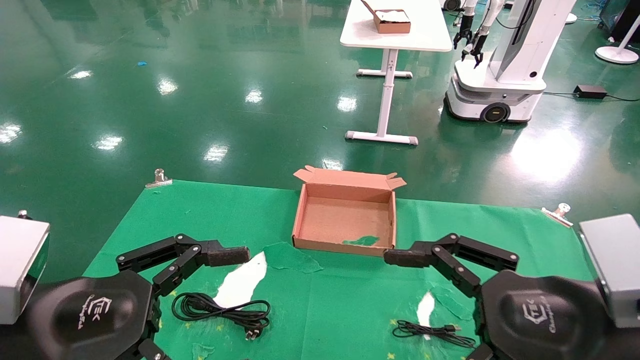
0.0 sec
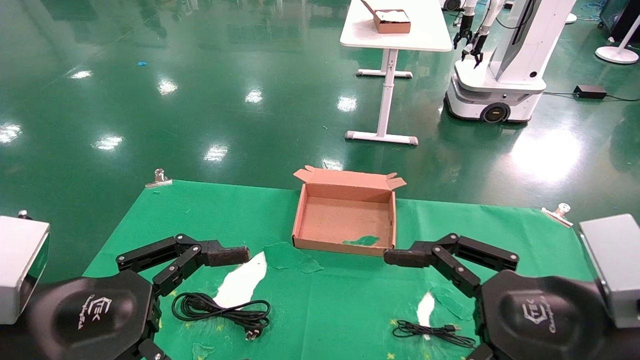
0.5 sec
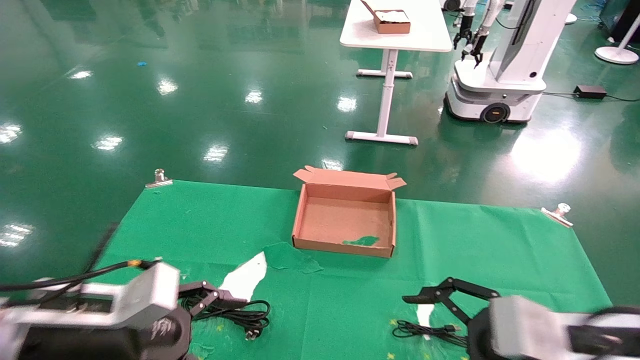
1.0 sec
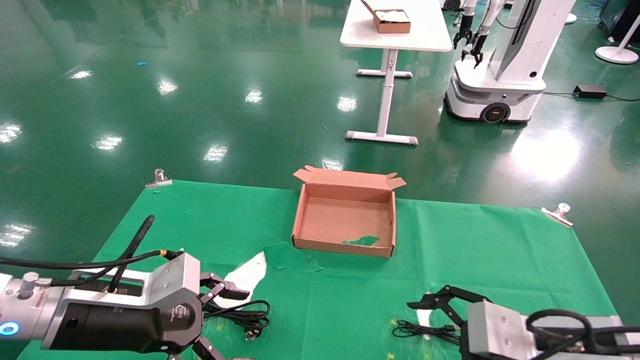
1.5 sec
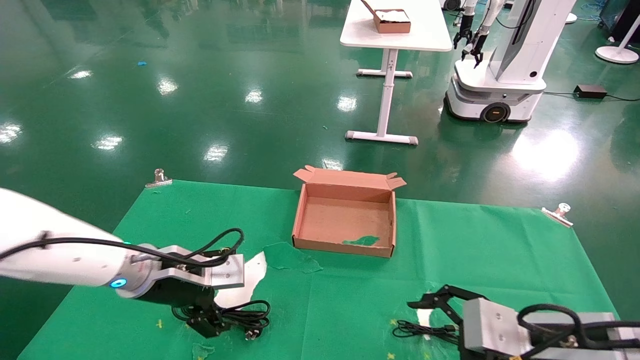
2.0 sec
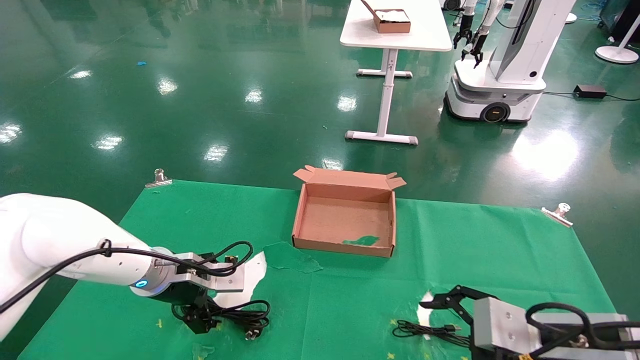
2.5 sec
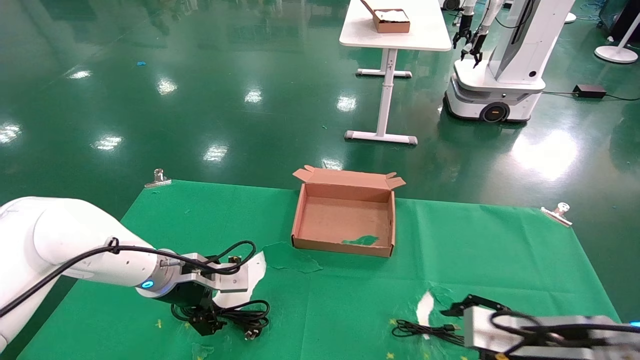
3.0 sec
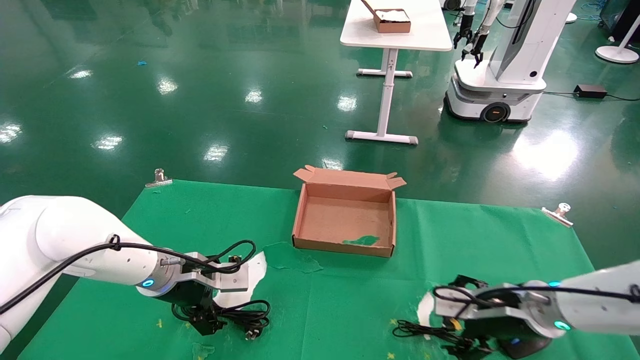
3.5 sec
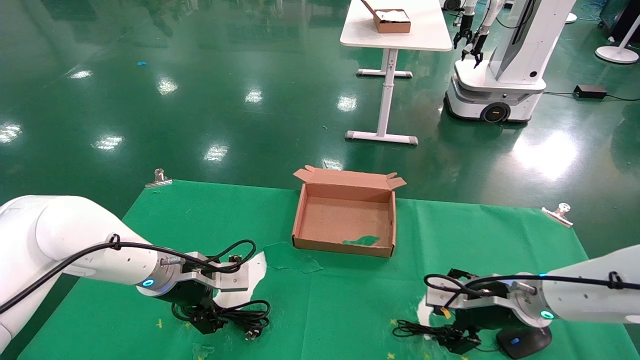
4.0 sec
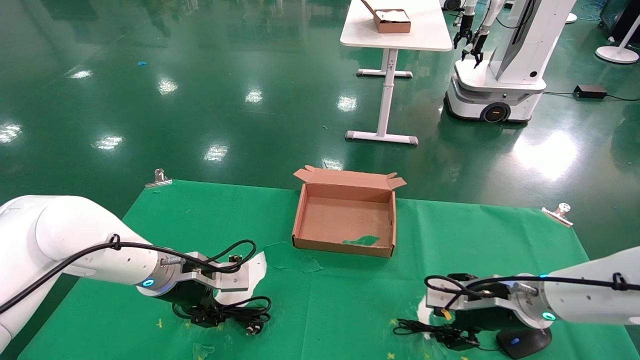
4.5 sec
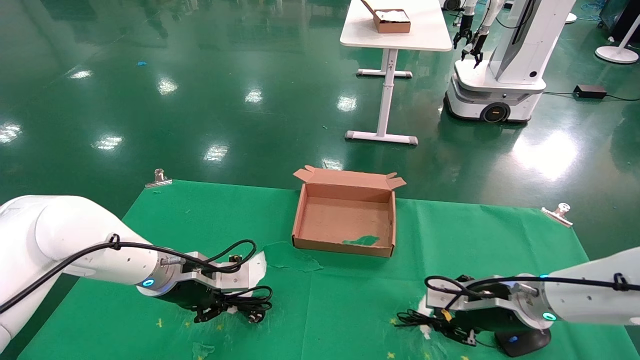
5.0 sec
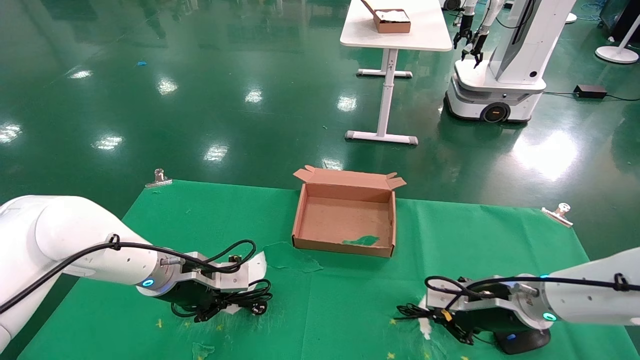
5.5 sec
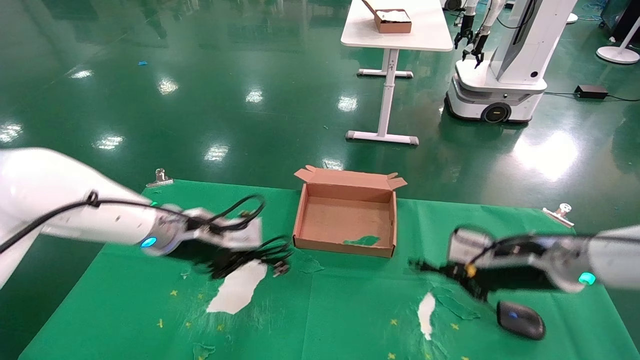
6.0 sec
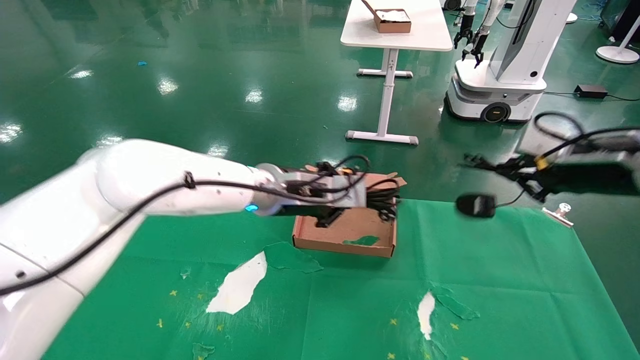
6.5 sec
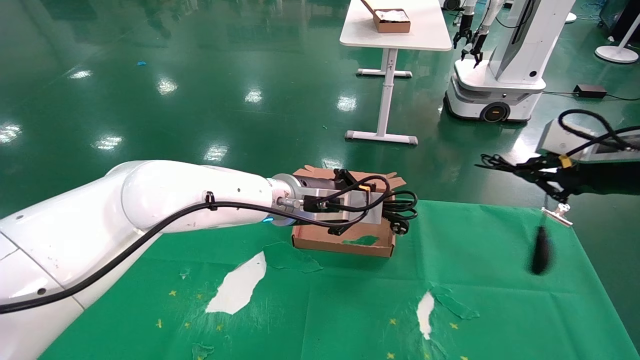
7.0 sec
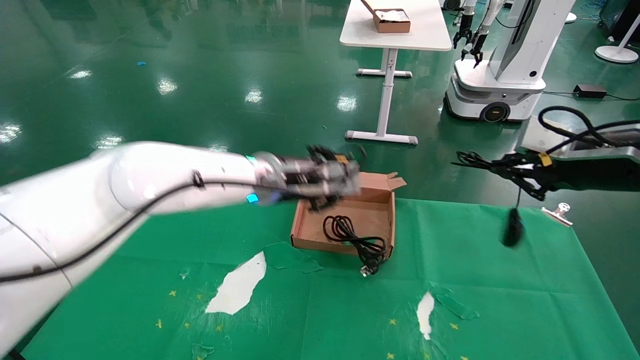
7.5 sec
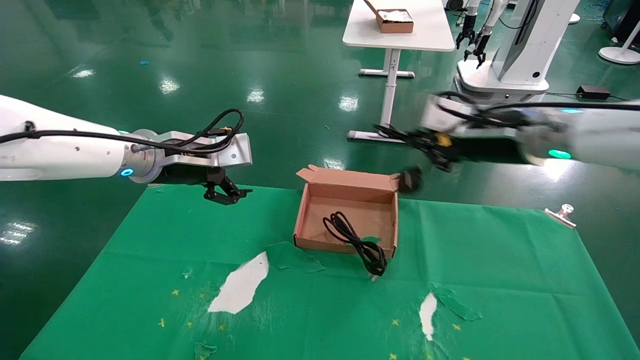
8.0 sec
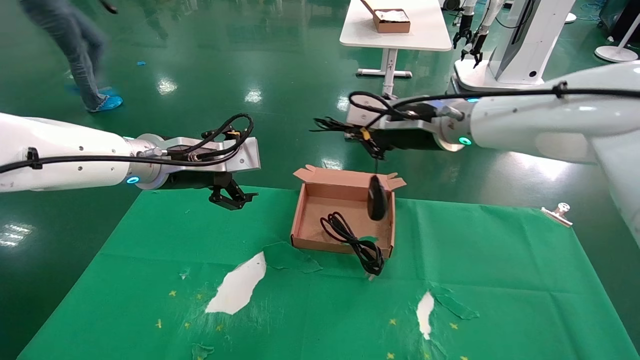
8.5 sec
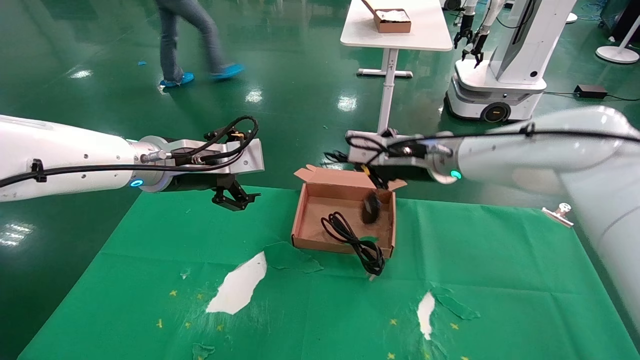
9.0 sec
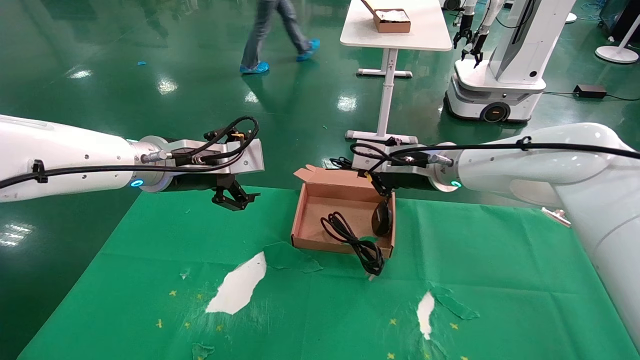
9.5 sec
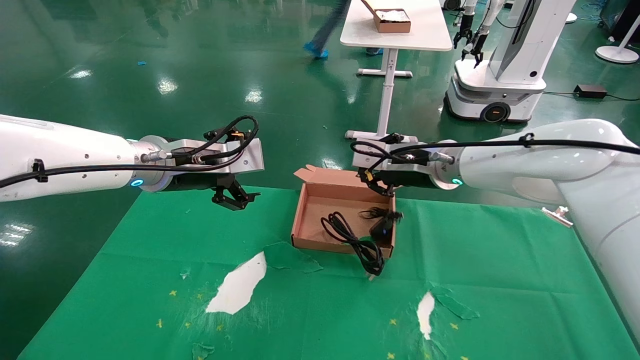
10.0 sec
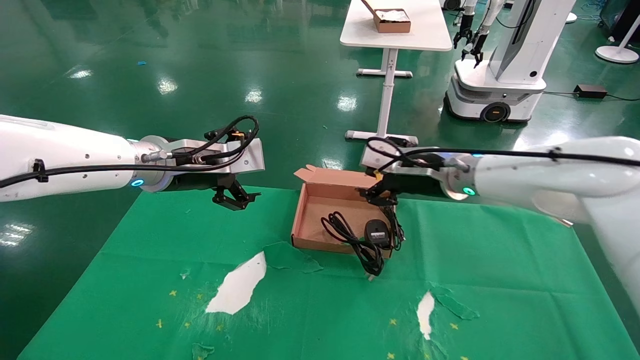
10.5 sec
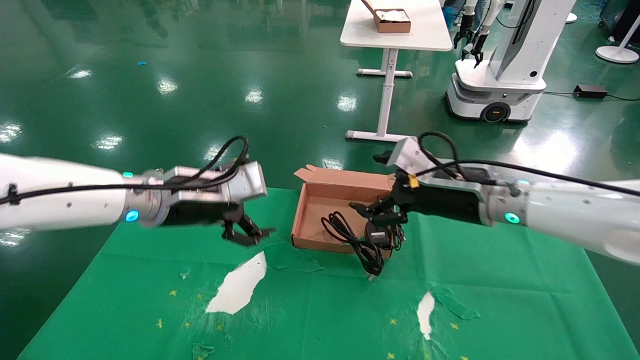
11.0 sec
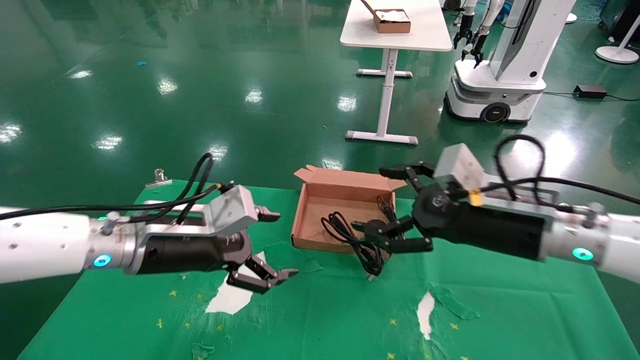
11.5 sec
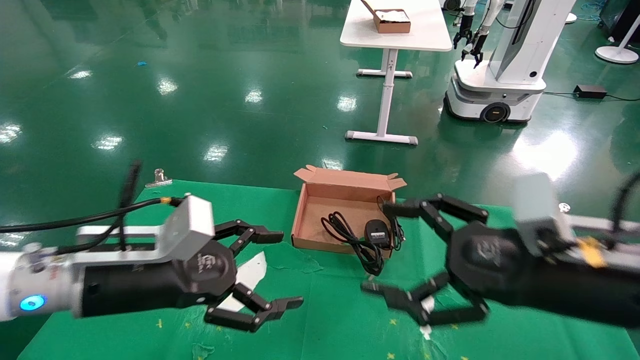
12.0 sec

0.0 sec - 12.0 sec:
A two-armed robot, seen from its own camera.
Step, 1.5 sec - 6.0 sec: Grab and lift both the mouse and power cord from the accessory packaging area at the same time.
Step, 6.5 sec - 9.5 sec: Place the mouse and power cord into the box.
0.0 sec - 2.0 sec: The right gripper travels downward and forward by roughly 10 cm; the left gripper is displaced forward by about 20 cm.
2.0 sec - 4.0 sec: The right gripper travels forward by roughly 15 cm. Meanwhile the left gripper ends up some 5 cm from where it was.
4.0 sec - 6.0 sec: The left gripper heads upward and to the right, covering approximately 10 cm, and closes its fingers, while the right gripper travels upward by approximately 10 cm, and closes up.
6.0 sec - 8.0 sec: The left gripper is displaced upward by approximately 10 cm, travels to the right and back again, approximately 15 cm each way, and opens up. Meanwhile the right gripper travels upward by approximately 15 cm.
8.0 sec - 10.0 sec: The right gripper shifts approximately 10 cm to the left, forward and downward.
10.0 sec - 12.0 sec: The left gripper goes roughly 15 cm backward and downward. The right gripper heads backward, covering about 25 cm, and opens up.

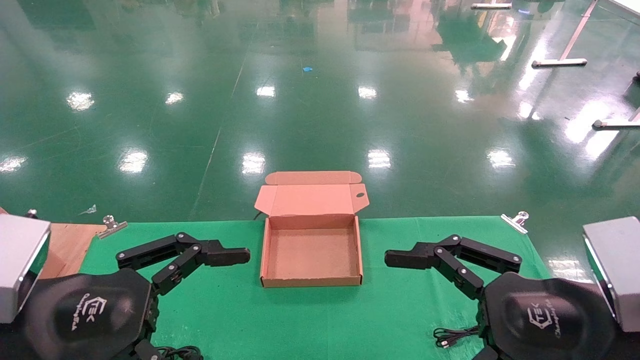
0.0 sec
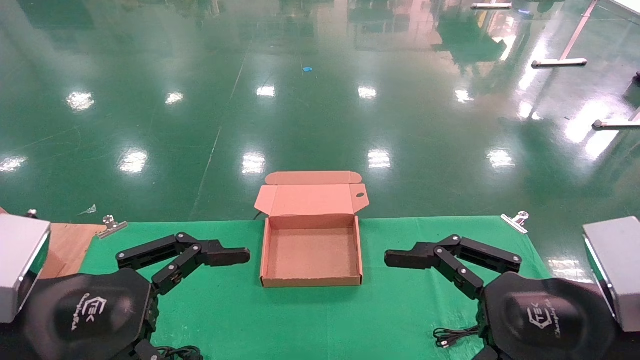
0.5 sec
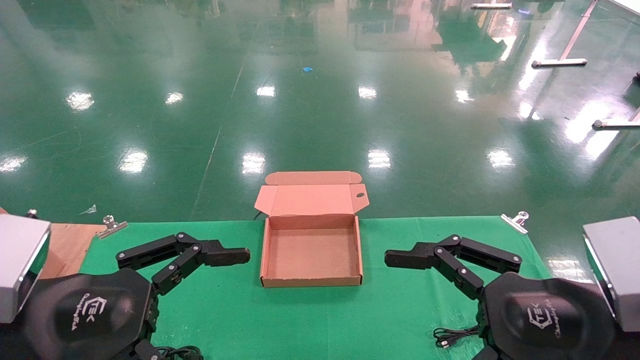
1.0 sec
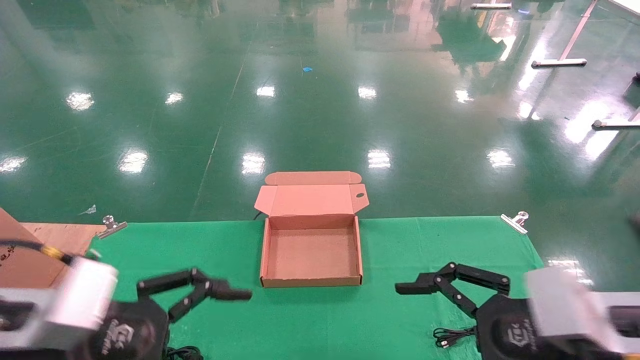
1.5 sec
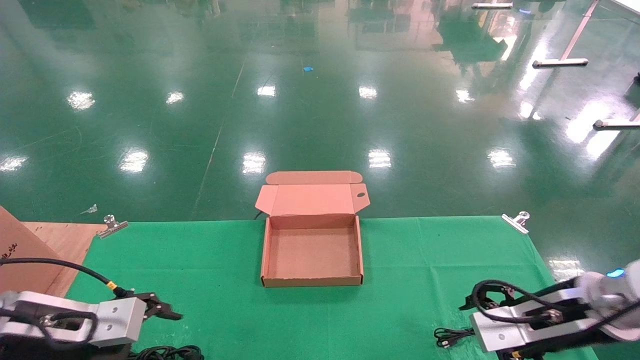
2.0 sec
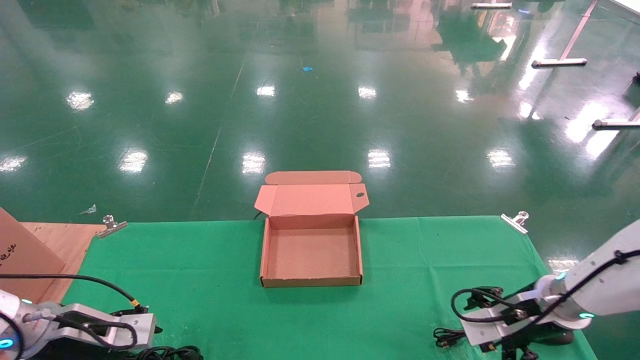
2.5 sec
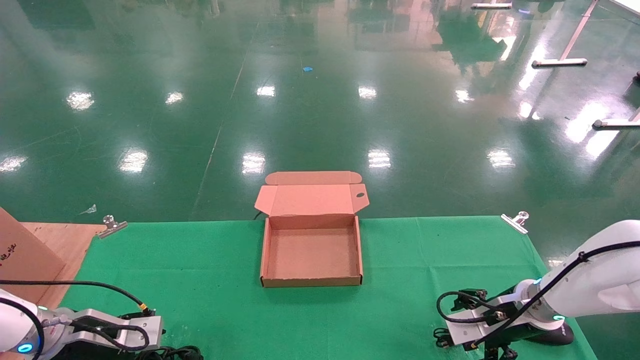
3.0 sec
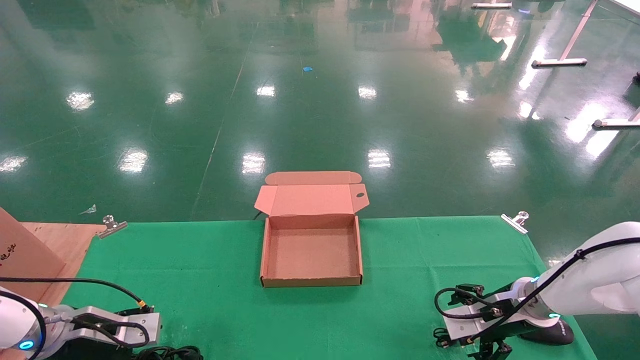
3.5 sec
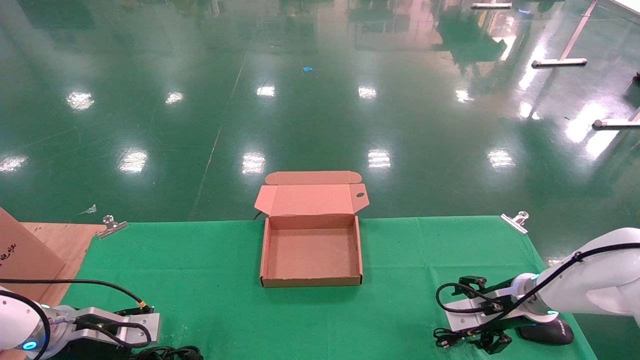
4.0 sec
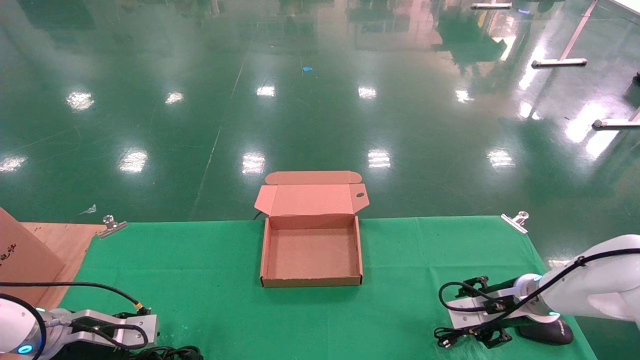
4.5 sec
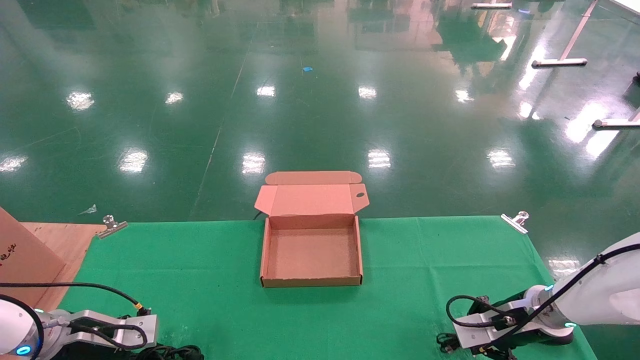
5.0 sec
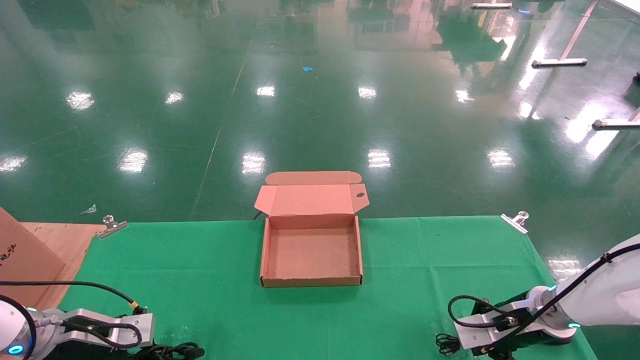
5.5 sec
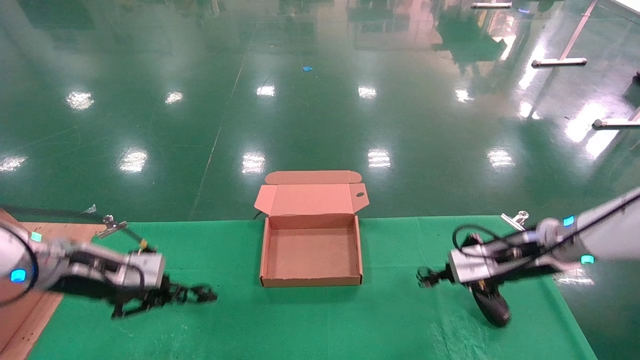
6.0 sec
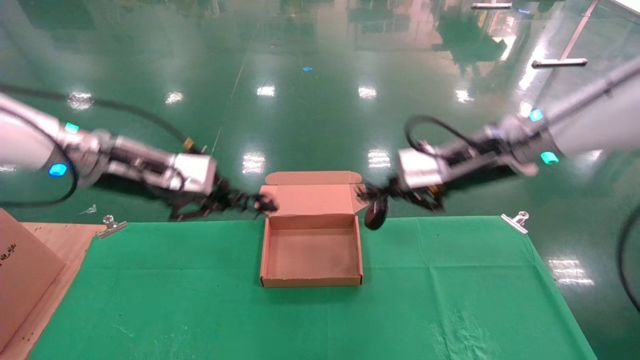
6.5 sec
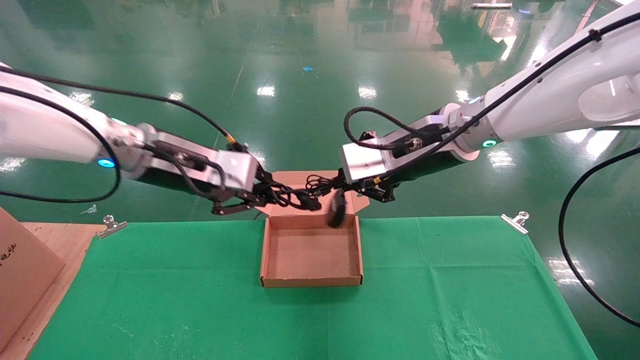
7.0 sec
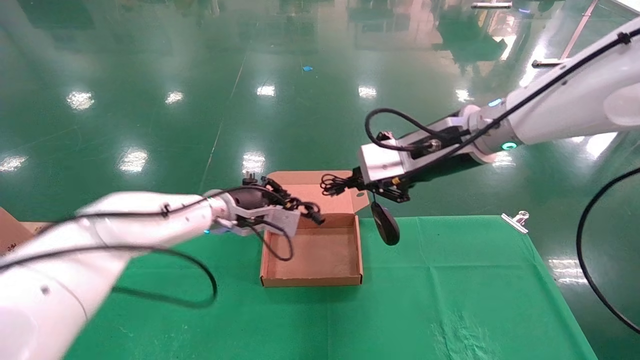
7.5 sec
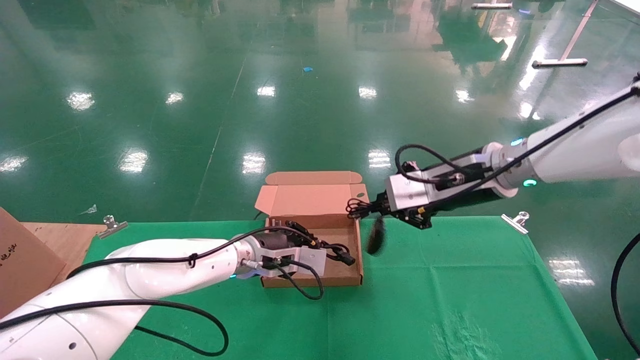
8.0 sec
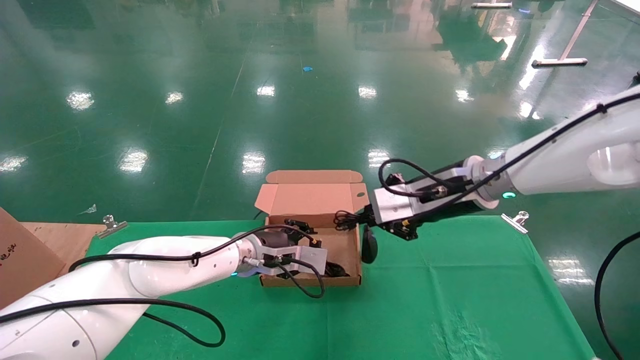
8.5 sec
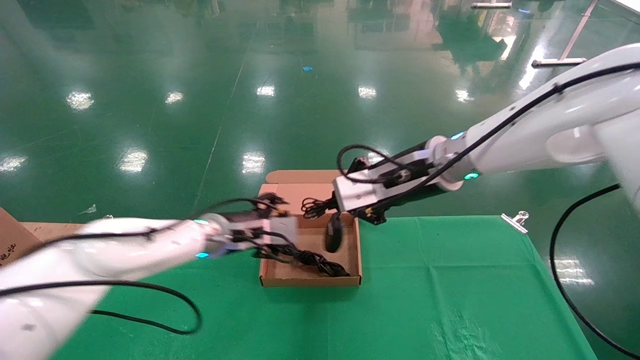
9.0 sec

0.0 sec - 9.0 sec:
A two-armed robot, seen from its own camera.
Step, 1.5 sec - 4.5 sec: Grab and lift both the mouse and power cord from the accessory packaging area at the same time.
0.0 sec - 2.0 sec: The left gripper moves forward, downward and to the left, roughly 15 cm, while the right gripper shifts roughly 15 cm forward and downward.
2.0 sec - 4.5 sec: The right gripper shifts approximately 15 cm forward and downward; the left gripper heads downward and forward, covering about 15 cm.
4.5 sec - 7.0 sec: The left gripper shifts roughly 30 cm upward and to the right, and closes its fingers. The right gripper goes about 30 cm upward and to the left, and closes up.
7.0 sec - 9.0 sec: The left gripper travels downward and forward by about 15 cm, and opens. Meanwhile the right gripper moves approximately 5 cm.
